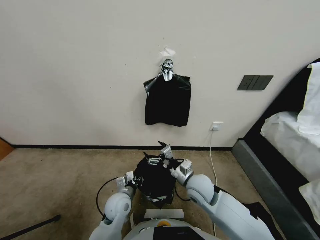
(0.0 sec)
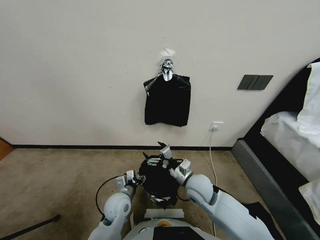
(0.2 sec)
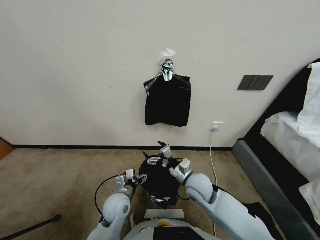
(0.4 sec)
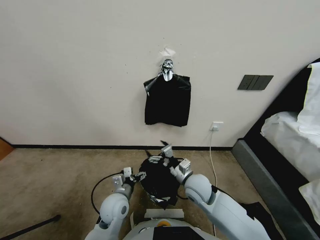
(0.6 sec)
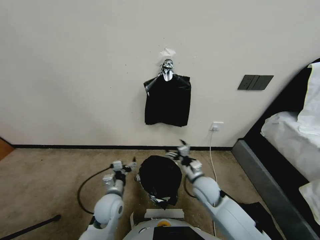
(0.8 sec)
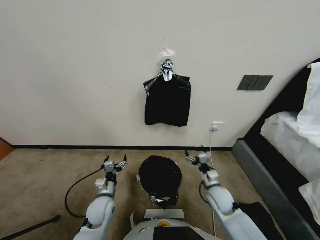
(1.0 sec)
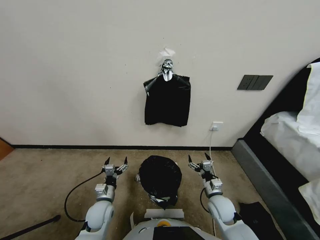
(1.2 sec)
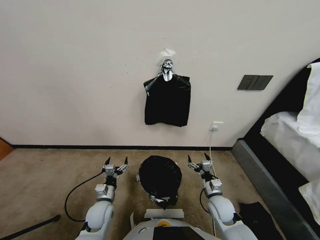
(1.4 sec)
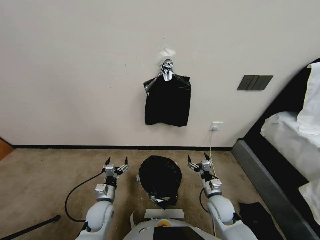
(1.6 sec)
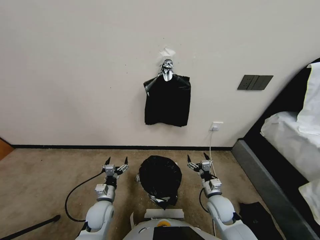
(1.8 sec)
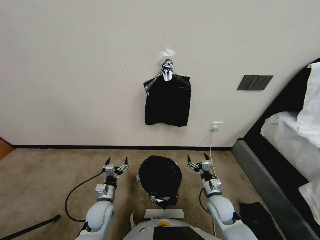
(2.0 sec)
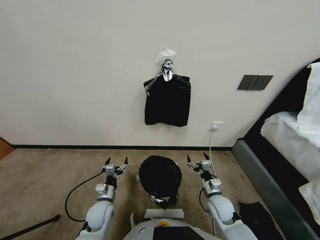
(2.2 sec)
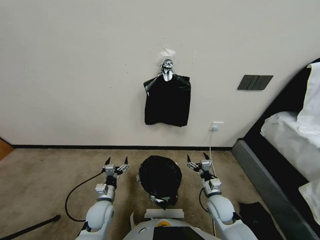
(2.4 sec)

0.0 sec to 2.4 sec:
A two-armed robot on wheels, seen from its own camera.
Task of the whole recording: Place a trash bag onto the trash bin.
0.0 sec to 1.2 sec: The right gripper goes roughly 15 cm downward and to the right, while the left gripper moves to the left and downward, approximately 10 cm, and opens.
1.2 sec to 2.4 sec: Both grippers stay put.
